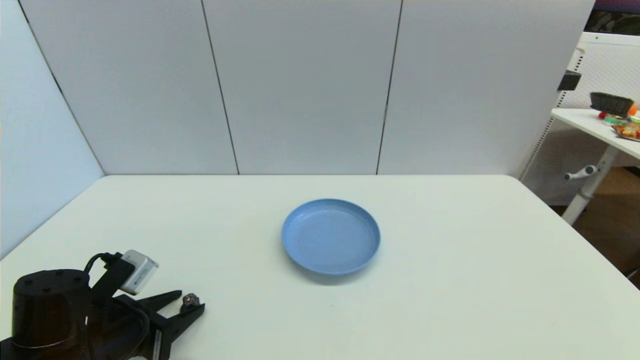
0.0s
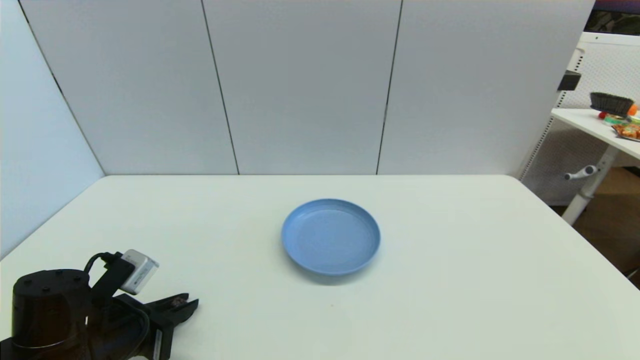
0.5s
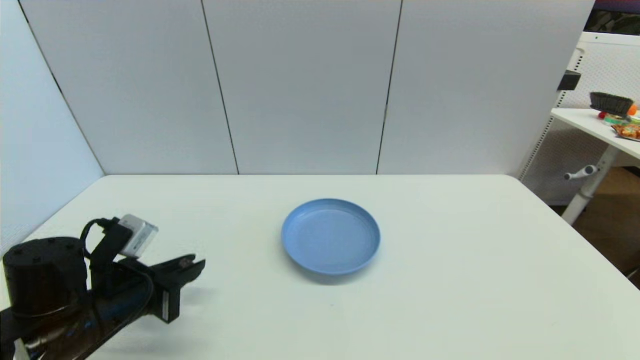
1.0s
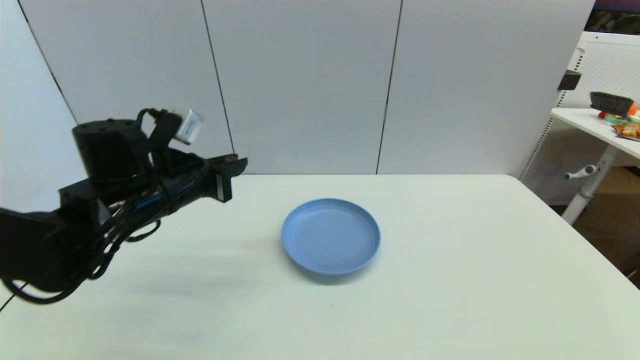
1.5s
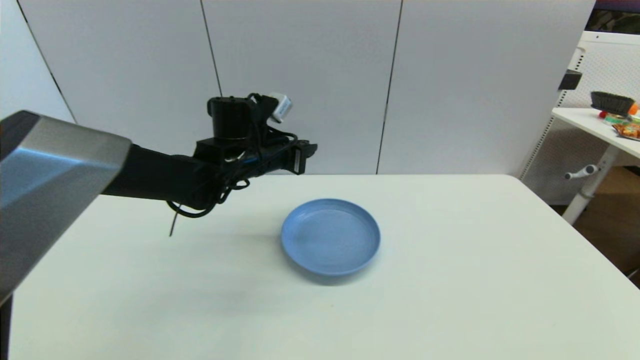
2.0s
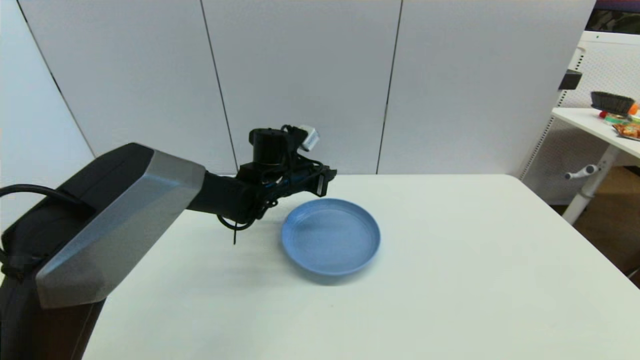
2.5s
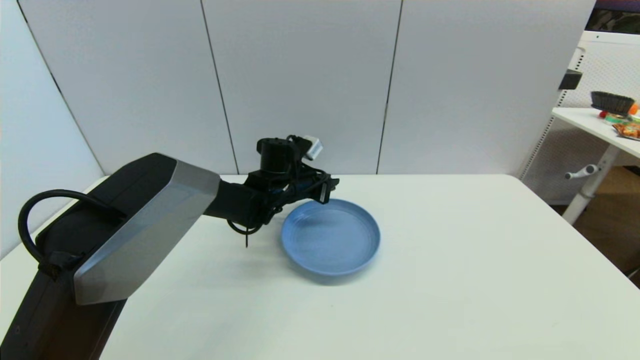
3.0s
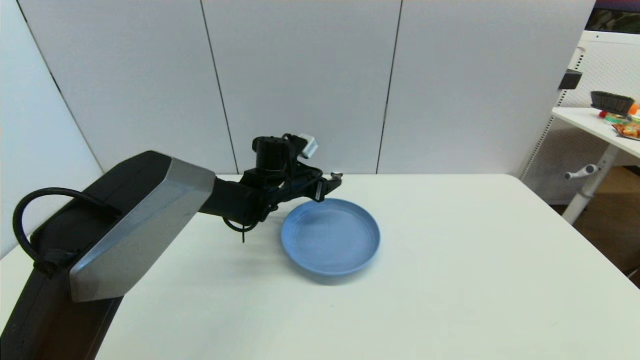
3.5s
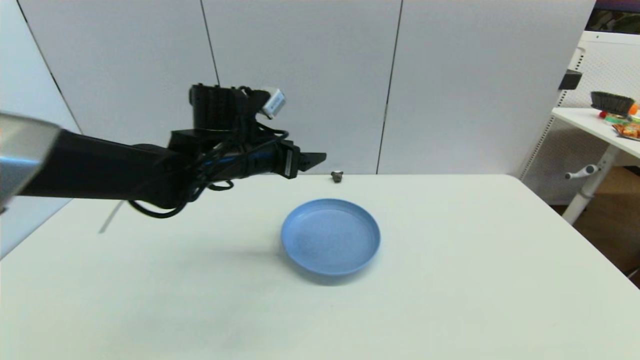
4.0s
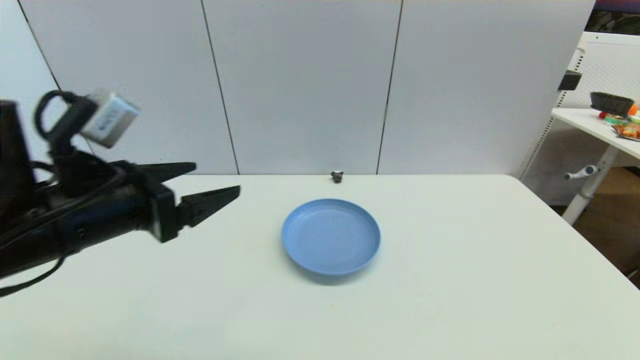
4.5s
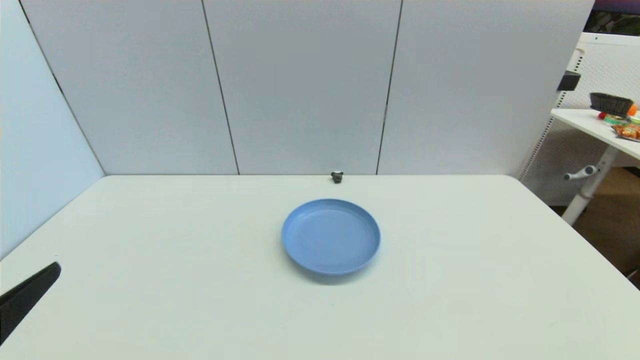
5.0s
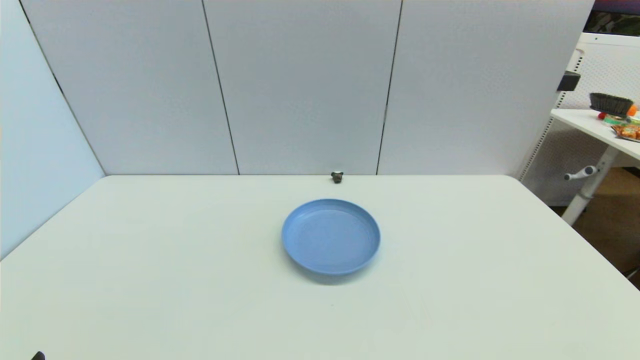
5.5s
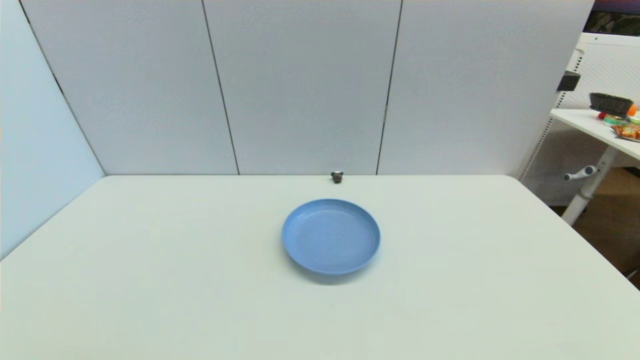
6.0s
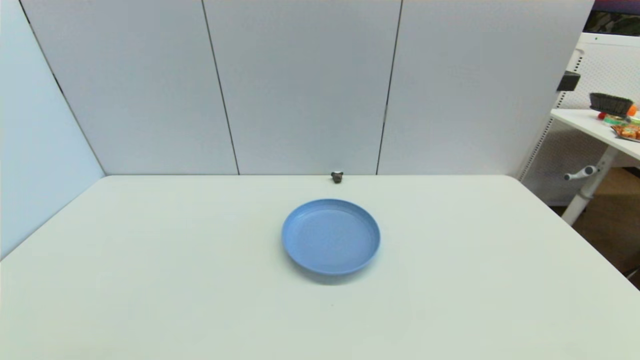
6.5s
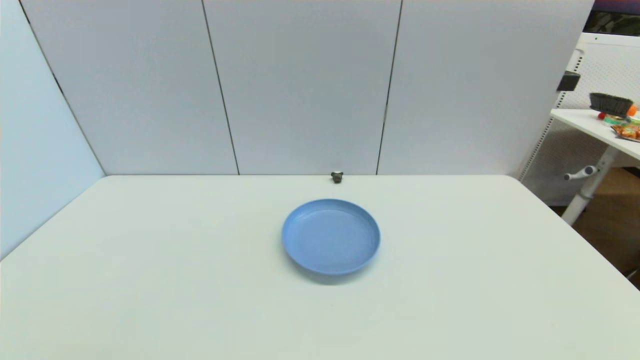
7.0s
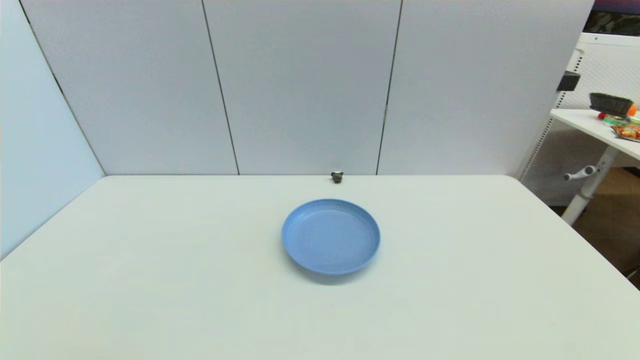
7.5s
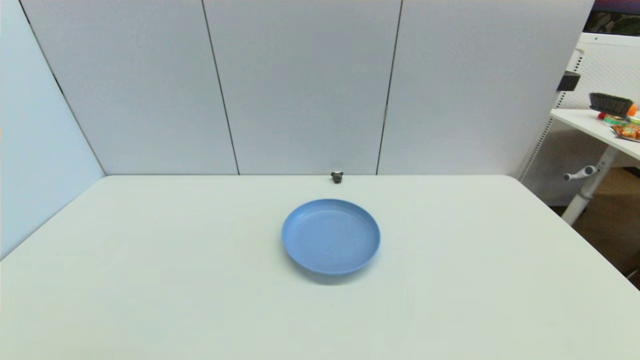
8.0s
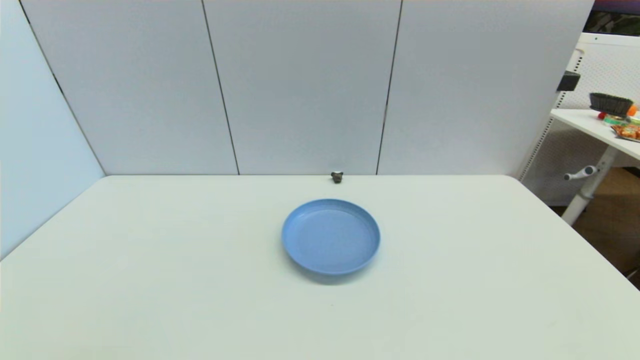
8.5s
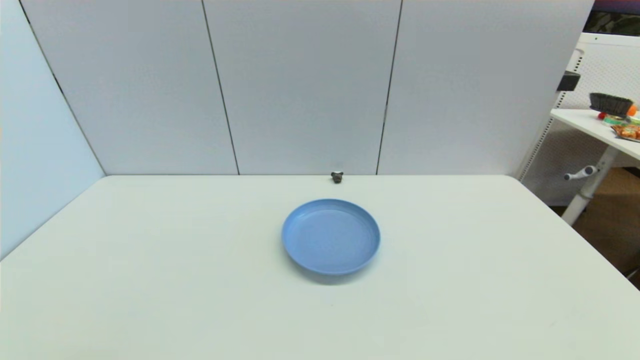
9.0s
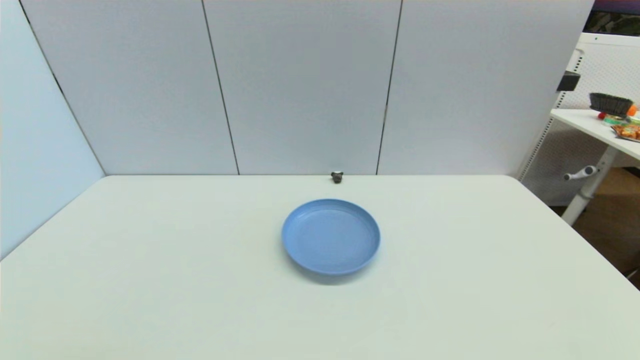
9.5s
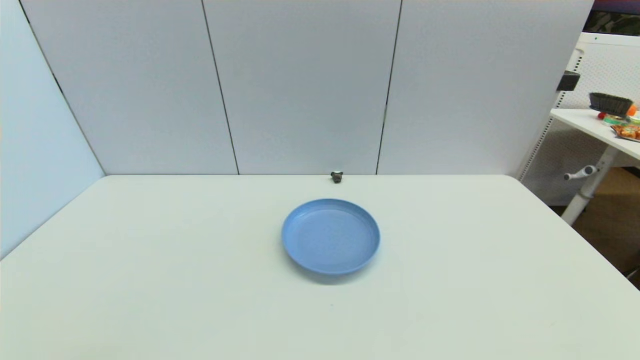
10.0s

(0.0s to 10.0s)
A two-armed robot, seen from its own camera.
Step, 0.5s - 3.5s: Place the coffee capsule on the table with left gripper.
0.0s - 2.0s: The left gripper heads forward, to the right and upward, covering roughly 30 cm, and closes.
2.0s - 4.0s: The left gripper reaches approximately 10 cm downward, then returns, and opens its fingers.
4.0s - 6.0s: The left gripper shifts roughly 40 cm backward and to the left.
6.0s - 10.0s: Neither gripper changes place.
